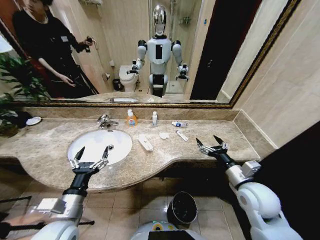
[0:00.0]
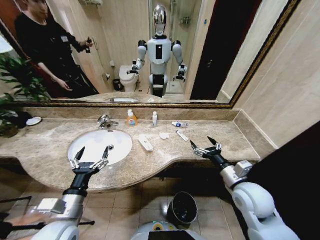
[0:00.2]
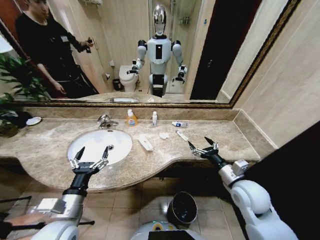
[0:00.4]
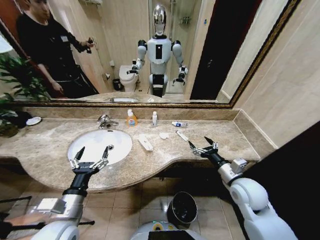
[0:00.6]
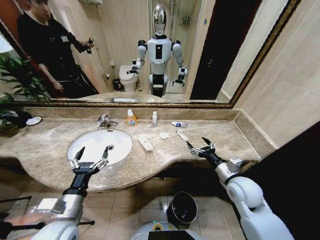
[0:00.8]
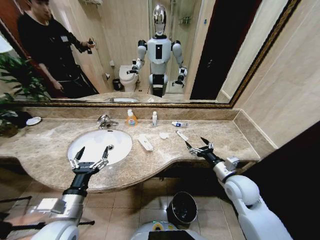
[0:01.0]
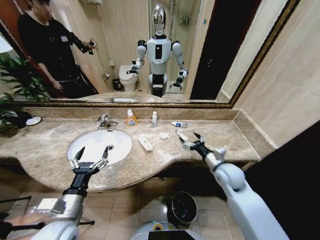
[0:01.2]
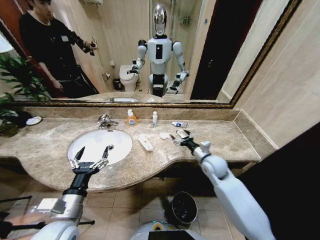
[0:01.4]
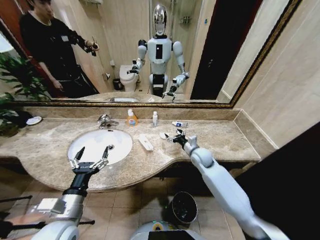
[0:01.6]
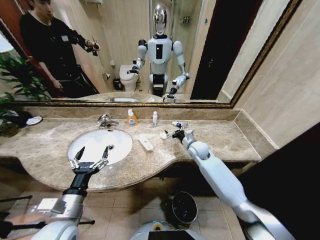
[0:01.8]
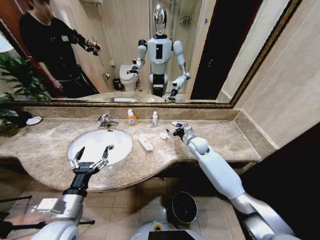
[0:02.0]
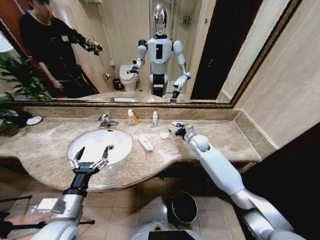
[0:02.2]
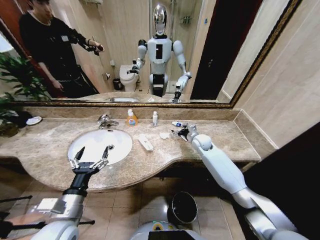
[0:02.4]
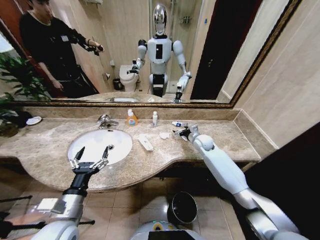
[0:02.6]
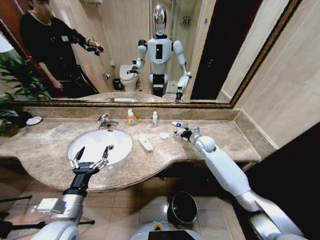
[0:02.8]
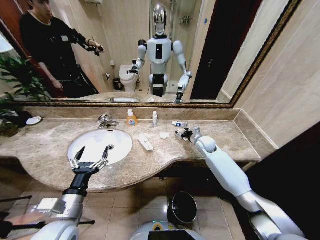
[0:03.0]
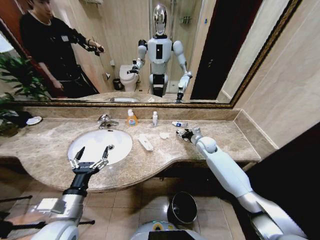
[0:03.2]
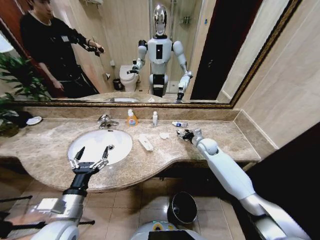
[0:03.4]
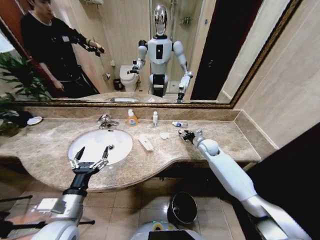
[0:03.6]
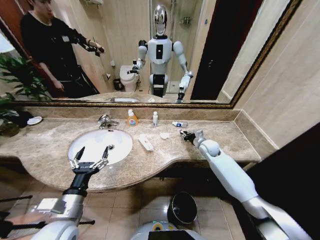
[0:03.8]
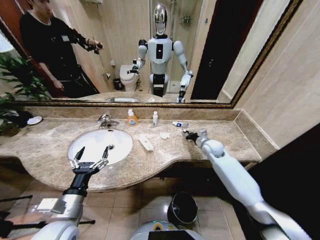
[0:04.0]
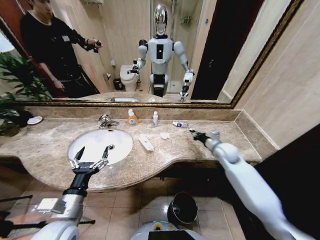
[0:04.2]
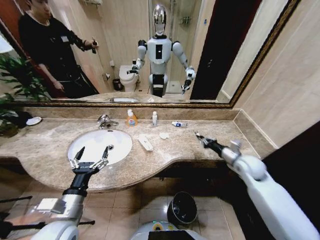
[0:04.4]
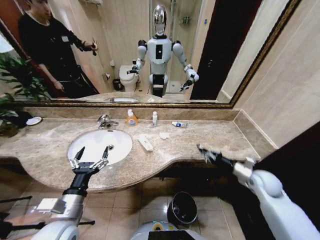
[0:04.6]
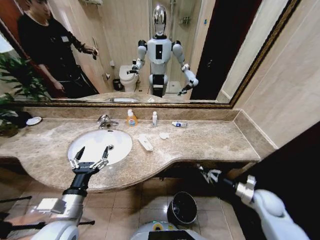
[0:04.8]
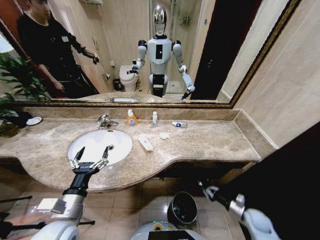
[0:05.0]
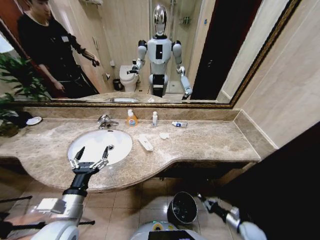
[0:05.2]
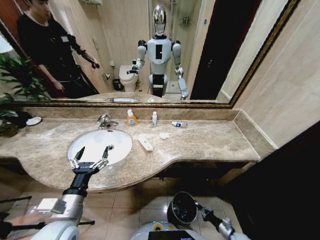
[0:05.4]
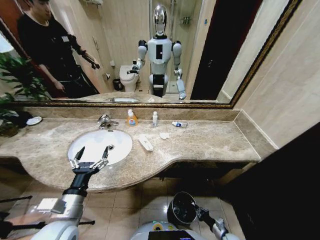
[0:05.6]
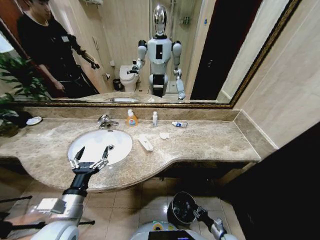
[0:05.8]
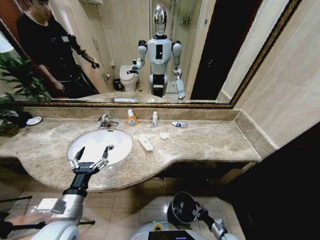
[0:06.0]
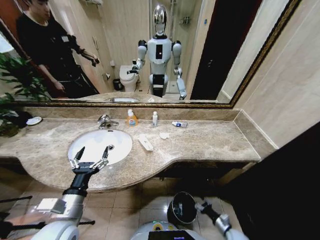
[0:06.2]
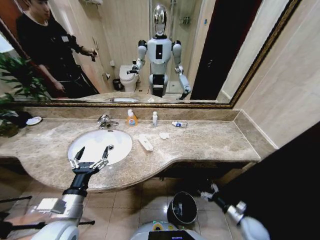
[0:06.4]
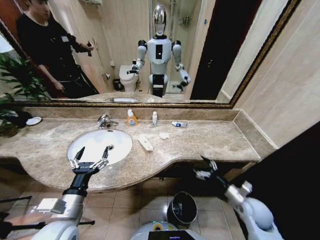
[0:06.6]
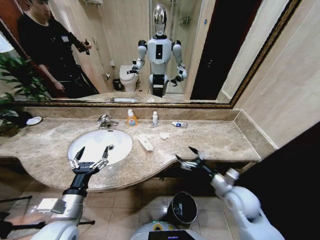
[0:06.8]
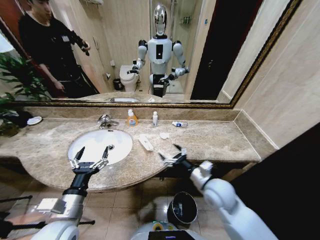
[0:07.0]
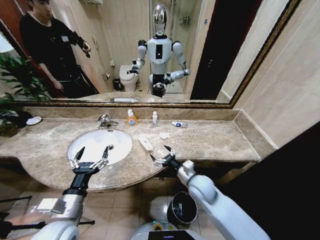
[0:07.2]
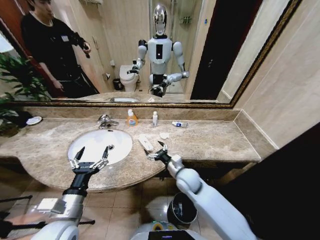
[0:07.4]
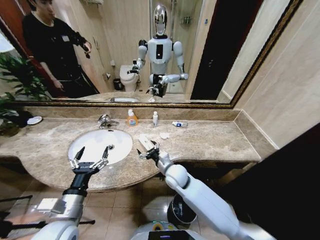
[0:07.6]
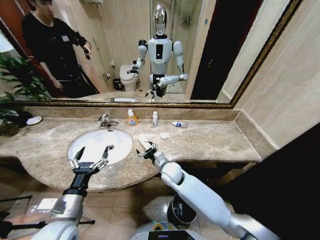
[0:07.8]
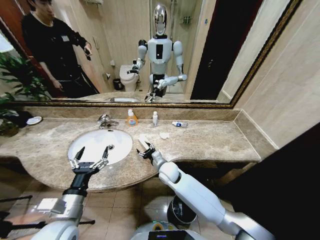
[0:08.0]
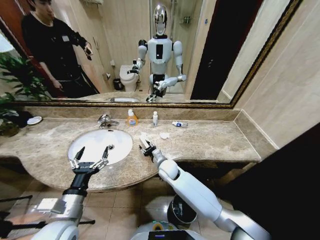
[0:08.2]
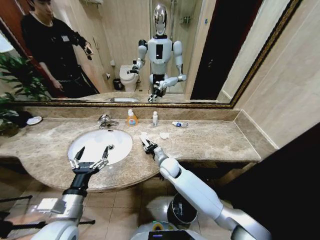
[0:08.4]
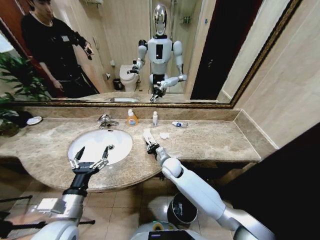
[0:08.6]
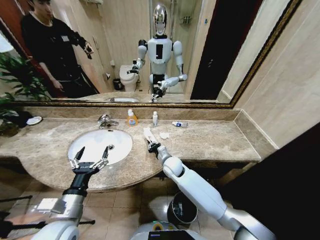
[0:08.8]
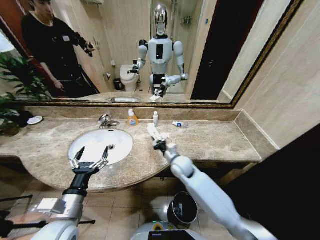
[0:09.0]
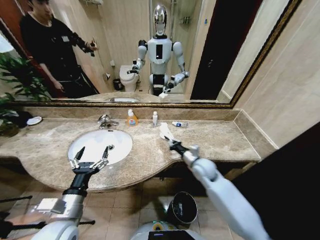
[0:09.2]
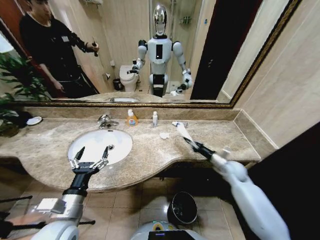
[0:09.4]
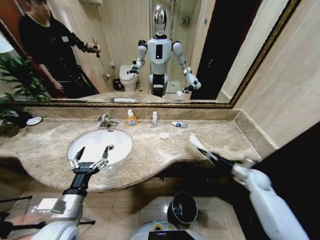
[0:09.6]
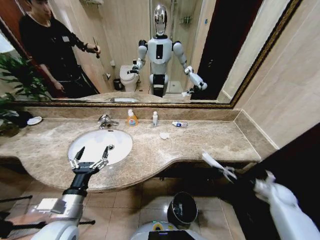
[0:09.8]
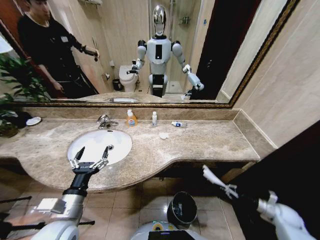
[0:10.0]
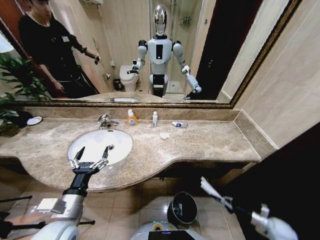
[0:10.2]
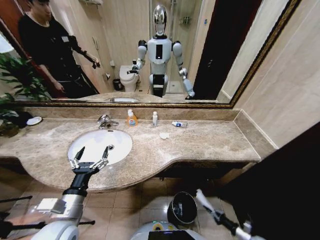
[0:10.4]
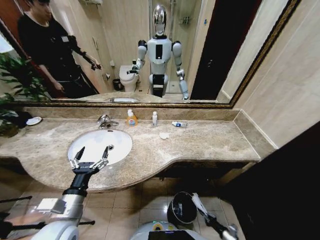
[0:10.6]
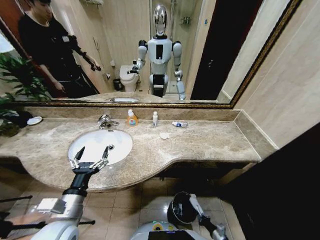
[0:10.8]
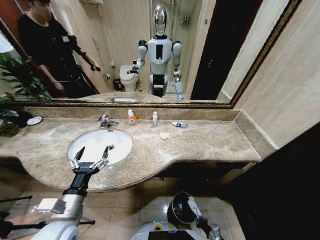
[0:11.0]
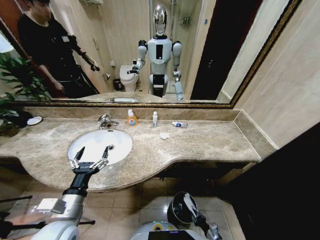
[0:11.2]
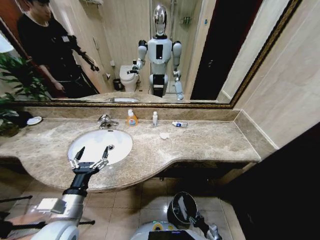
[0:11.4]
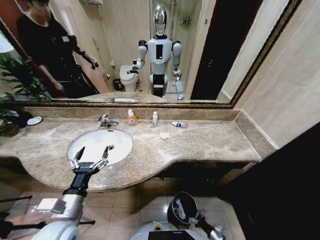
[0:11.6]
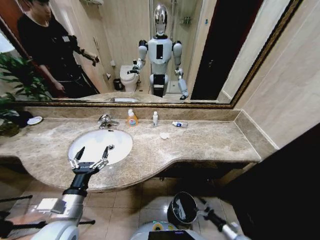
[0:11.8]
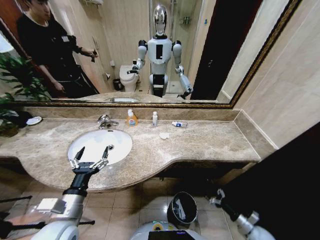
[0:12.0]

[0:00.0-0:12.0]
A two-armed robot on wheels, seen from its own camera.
Task of the whole recording: Pick up the trash from the sink and place it in the trash bin.
0:01.6 to 0:03.0: The right gripper moves forward and to the right, roughly 10 cm.
0:03.0 to 0:04.4: The right gripper travels backward and to the right by approximately 20 cm, and closes.
0:04.4 to 0:06.0: The right gripper travels downward and backward by roughly 50 cm, and opens.
0:06.0 to 0:07.6: The right gripper shifts roughly 50 cm upward, to the left and forward, and opens up.
0:07.6 to 0:09.0: The right gripper changes place by about 5 cm, and closes its fingers.
0:09.0 to 0:10.4: The right gripper goes about 60 cm to the right, downward and backward.
0:10.4 to 0:12.0: The right gripper shifts about 15 cm upward and to the left, and opens up.

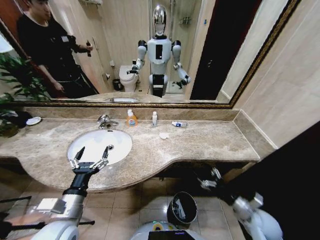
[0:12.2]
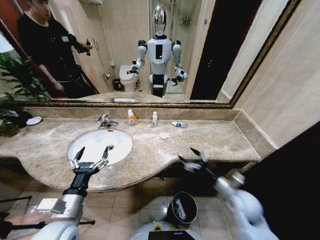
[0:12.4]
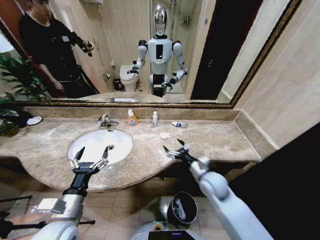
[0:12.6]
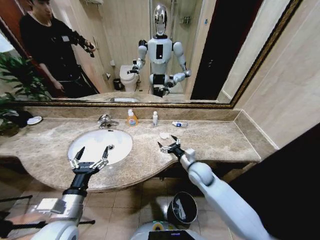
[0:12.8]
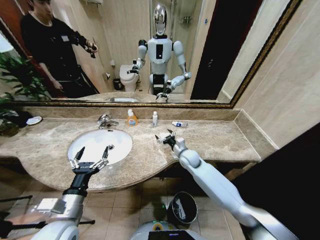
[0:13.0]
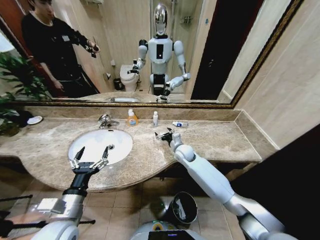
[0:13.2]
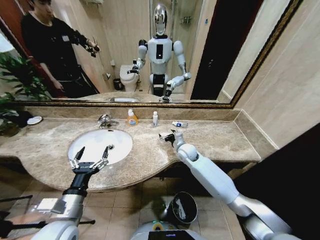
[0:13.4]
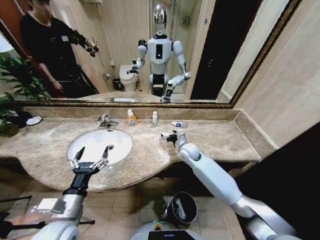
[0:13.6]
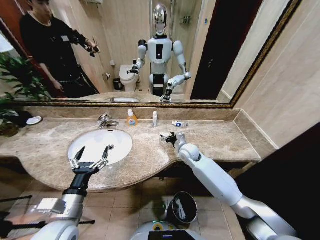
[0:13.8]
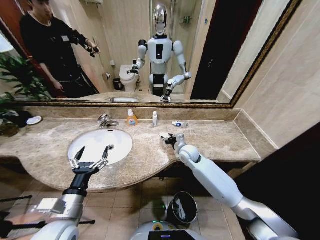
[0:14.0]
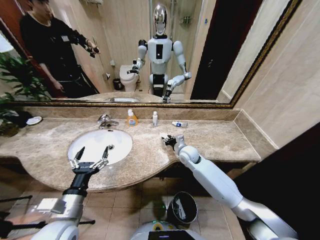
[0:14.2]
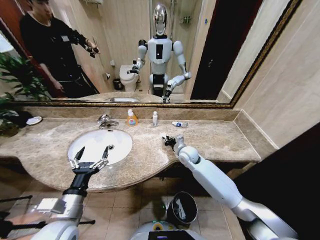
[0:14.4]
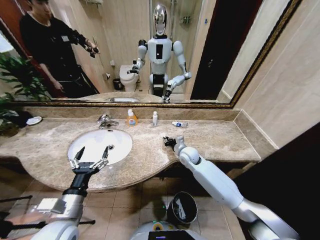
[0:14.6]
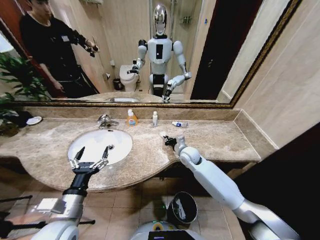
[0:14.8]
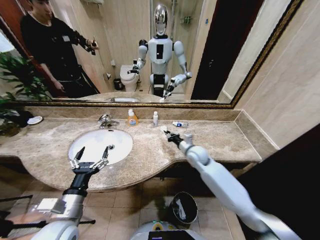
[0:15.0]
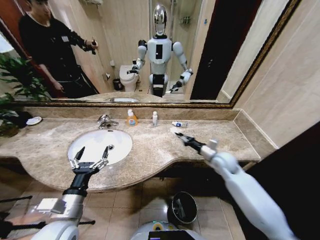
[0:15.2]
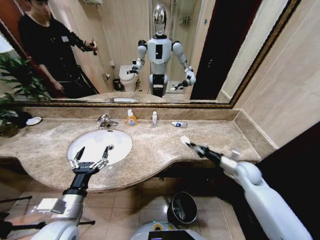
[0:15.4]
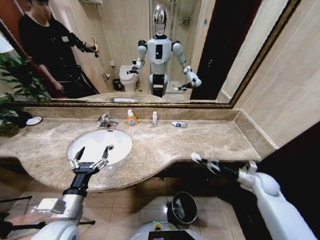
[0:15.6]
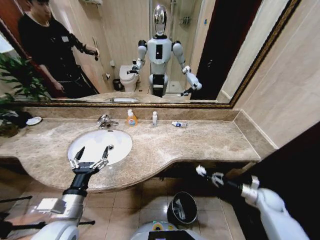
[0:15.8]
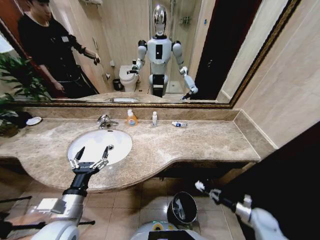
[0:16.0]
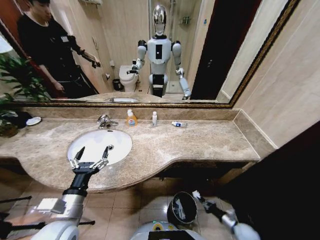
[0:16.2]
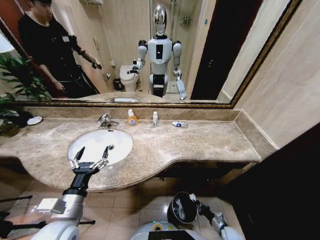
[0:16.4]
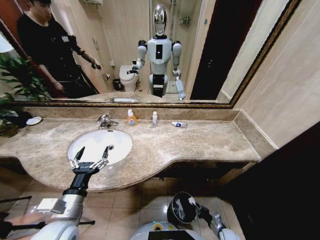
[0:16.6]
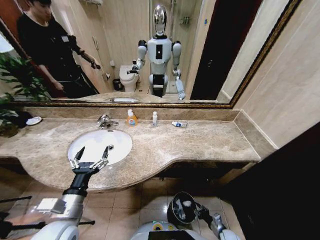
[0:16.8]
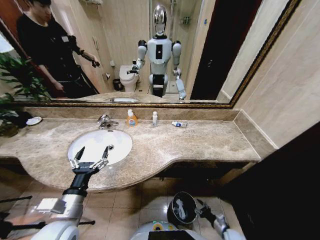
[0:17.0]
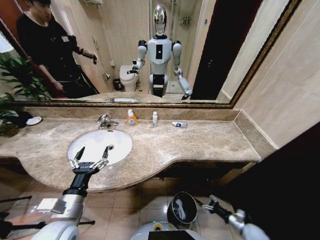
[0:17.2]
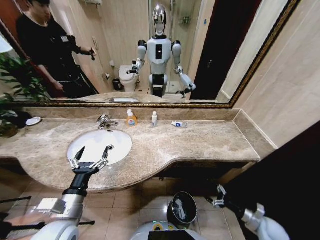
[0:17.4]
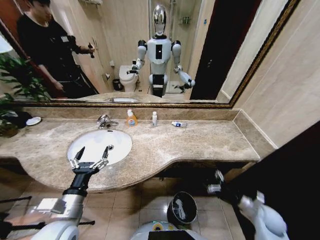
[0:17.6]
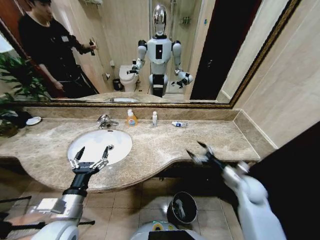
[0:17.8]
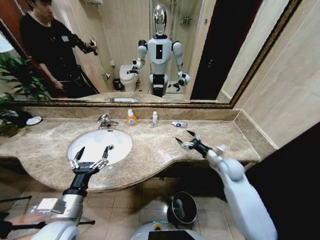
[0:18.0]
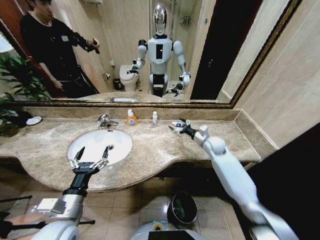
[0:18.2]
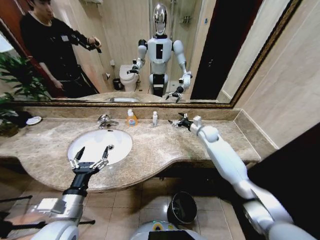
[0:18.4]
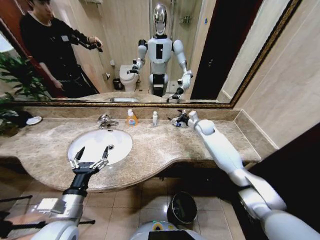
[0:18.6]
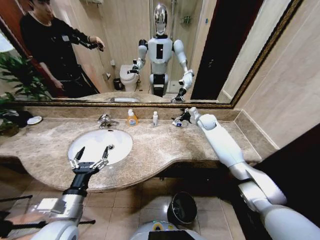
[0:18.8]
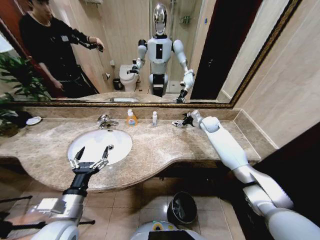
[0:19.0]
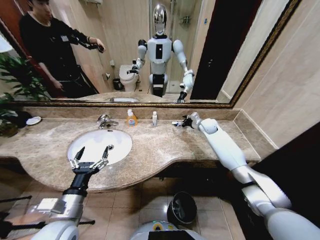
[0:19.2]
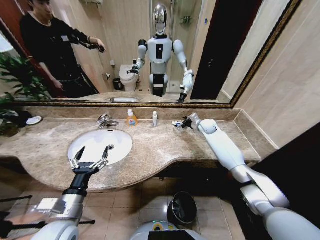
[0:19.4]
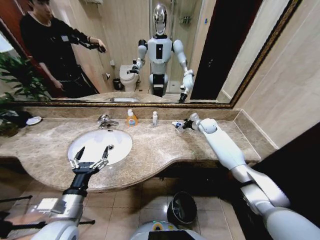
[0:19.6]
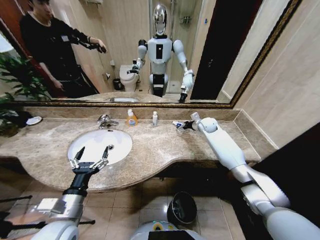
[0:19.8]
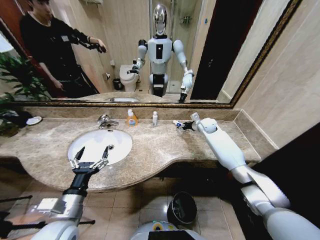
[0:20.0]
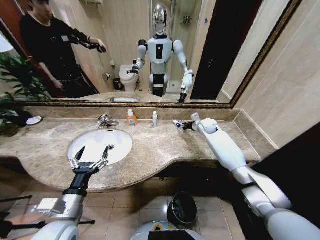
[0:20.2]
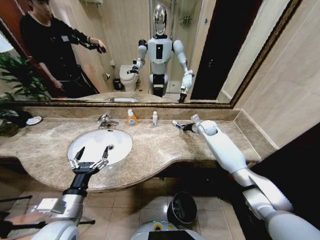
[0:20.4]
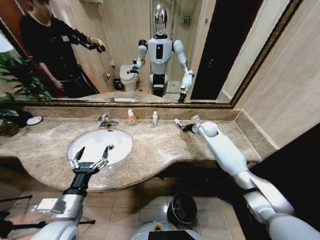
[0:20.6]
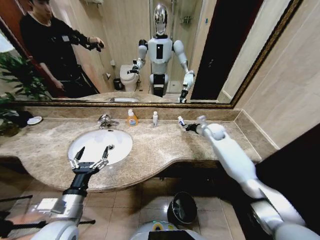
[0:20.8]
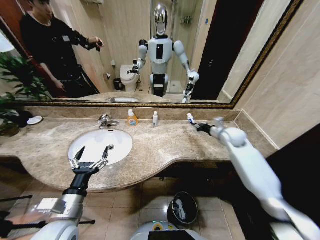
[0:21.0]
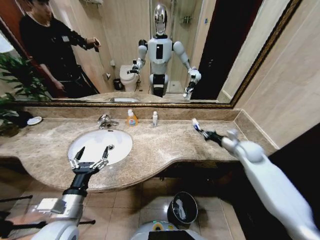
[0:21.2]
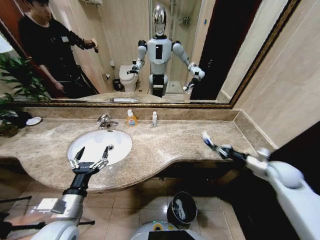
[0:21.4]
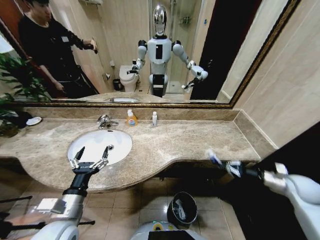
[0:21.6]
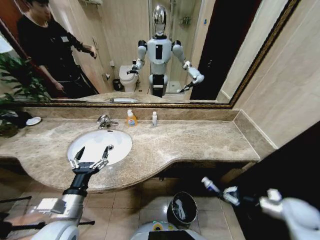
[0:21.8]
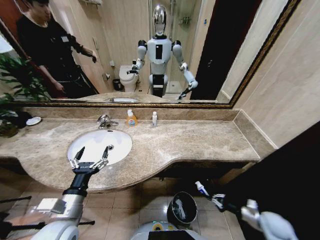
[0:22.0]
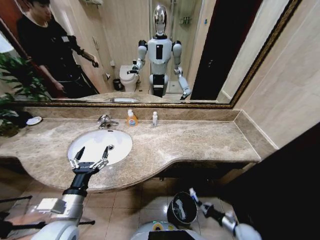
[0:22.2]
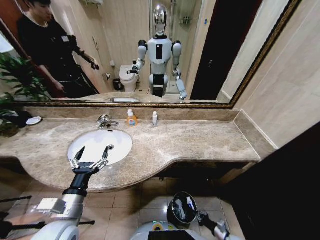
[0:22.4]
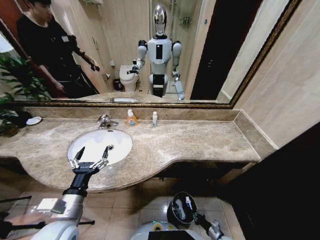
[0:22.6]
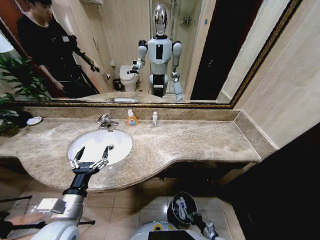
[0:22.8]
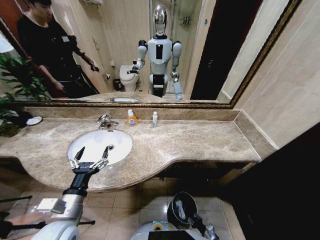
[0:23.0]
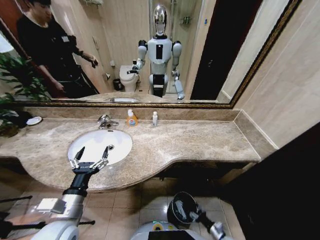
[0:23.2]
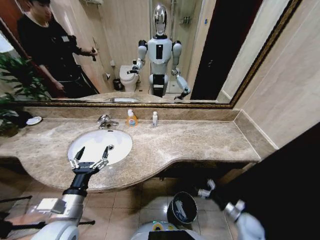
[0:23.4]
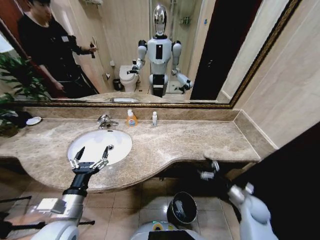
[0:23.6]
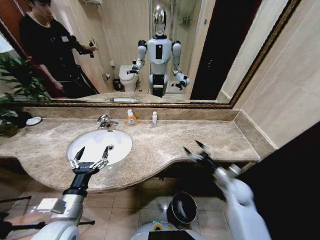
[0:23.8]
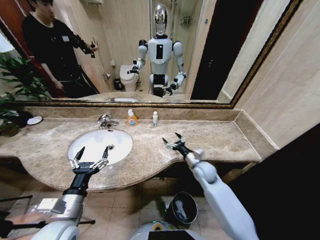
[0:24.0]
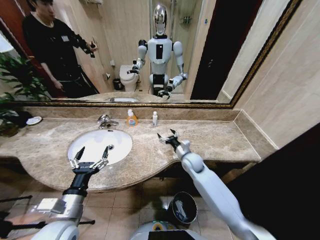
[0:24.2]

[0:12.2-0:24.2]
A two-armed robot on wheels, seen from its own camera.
Task of the whole recording: Pick up the trash from the sink and place it in the trash bin.
0:12.2 to 0:13.8: The right gripper heads forward and to the left, covering roughly 35 cm.
0:13.8 to 0:15.2: The right gripper is displaced to the right and backward by some 15 cm, and closes its fingers.
0:15.2 to 0:16.6: The right gripper heads downward and backward, covering about 40 cm.
0:16.6 to 0:18.2: The right gripper goes roughly 50 cm upward and forward, and opens up.
0:18.2 to 0:19.8: The right gripper travels forward by about 10 cm.
0:19.8 to 0:21.2: The right gripper moves backward and to the right, roughly 20 cm, and closes.
0:21.2 to 0:22.6: The right gripper is displaced downward and backward by approximately 50 cm.
0:22.6 to 0:24.2: The right gripper moves upward, forward and to the left, approximately 50 cm, and opens.
